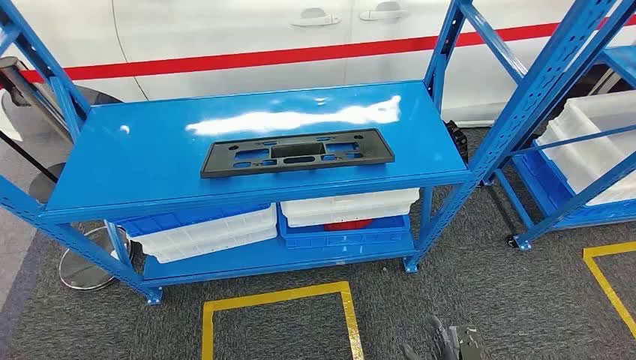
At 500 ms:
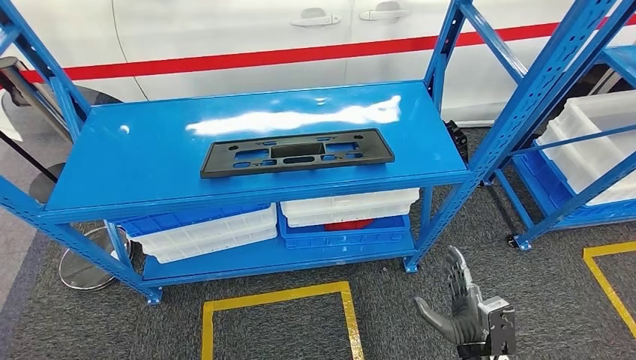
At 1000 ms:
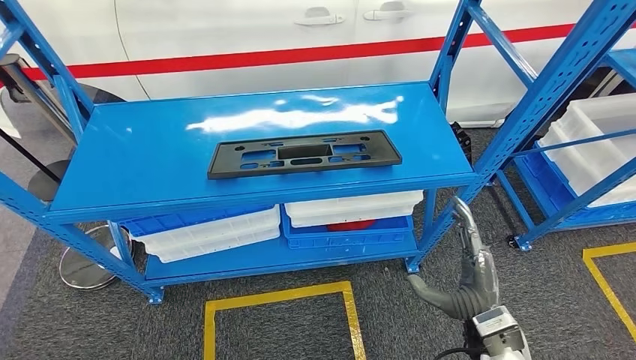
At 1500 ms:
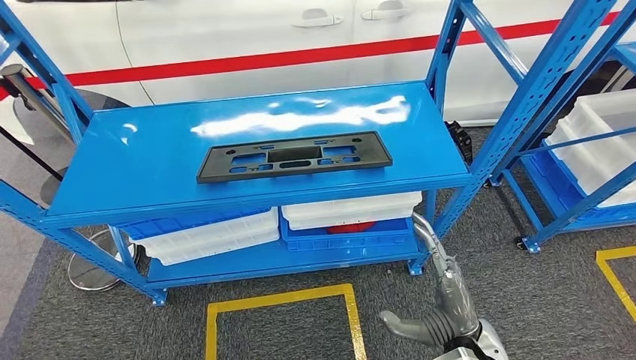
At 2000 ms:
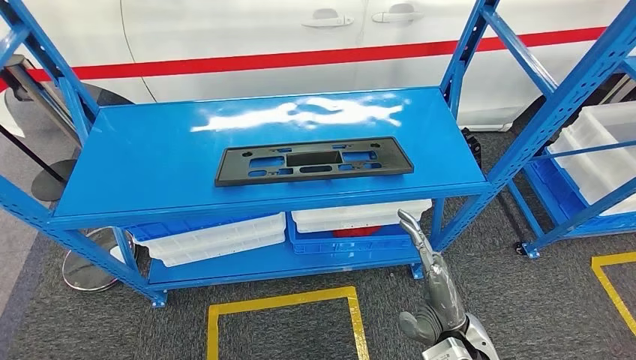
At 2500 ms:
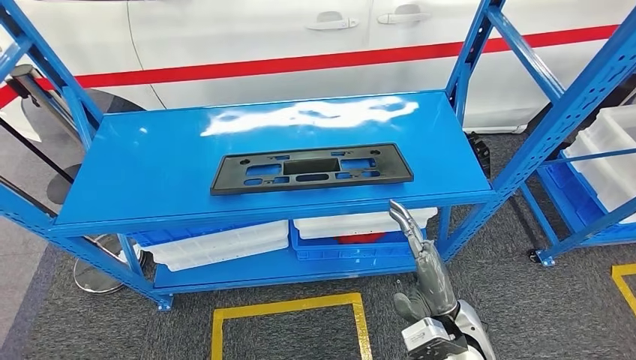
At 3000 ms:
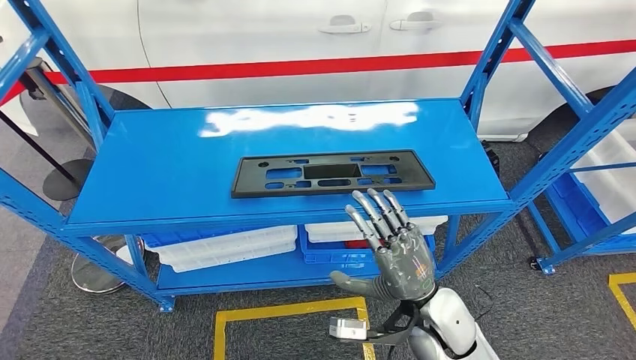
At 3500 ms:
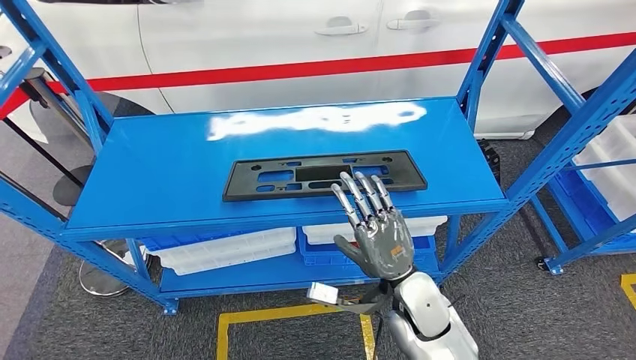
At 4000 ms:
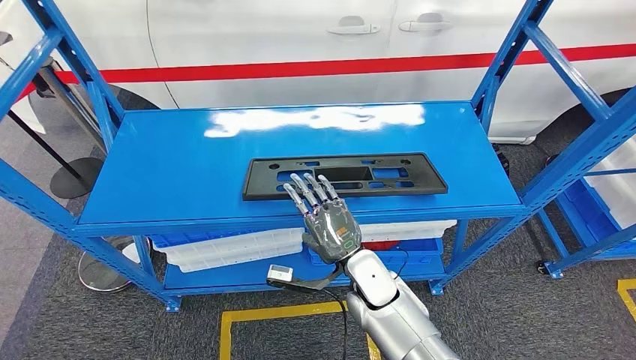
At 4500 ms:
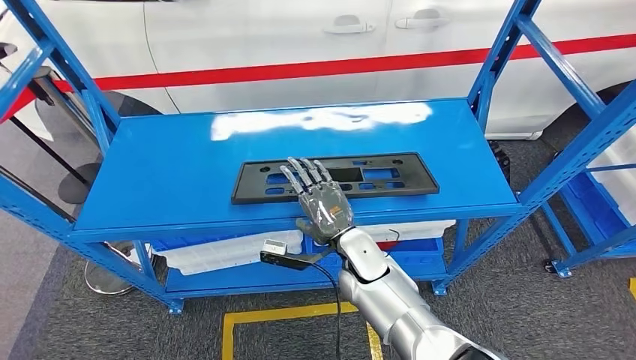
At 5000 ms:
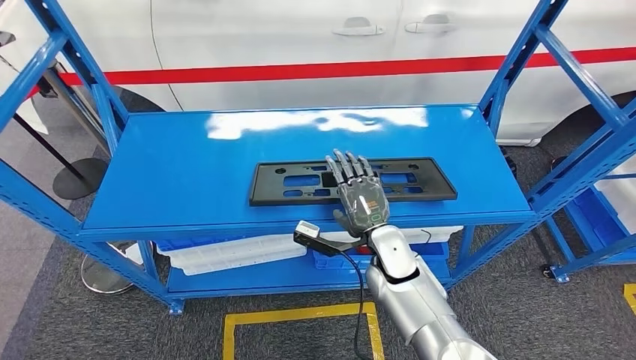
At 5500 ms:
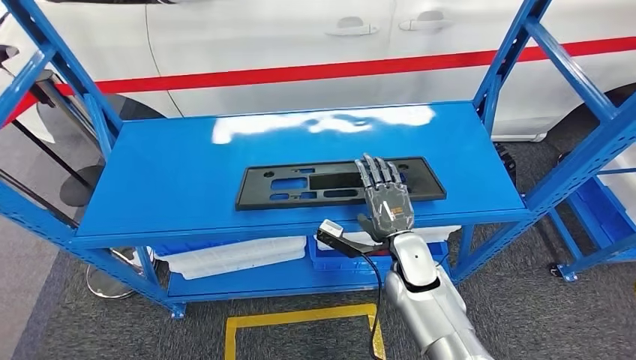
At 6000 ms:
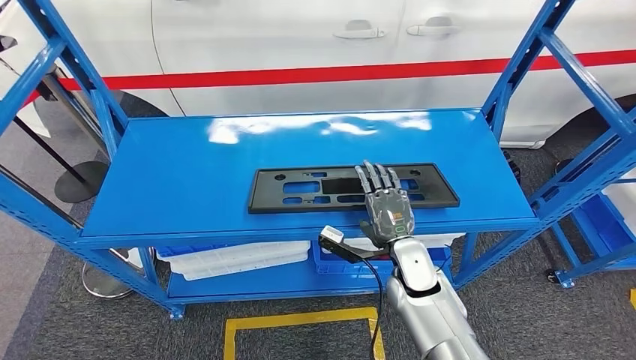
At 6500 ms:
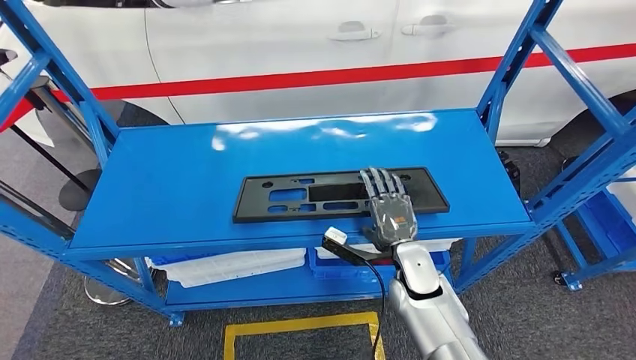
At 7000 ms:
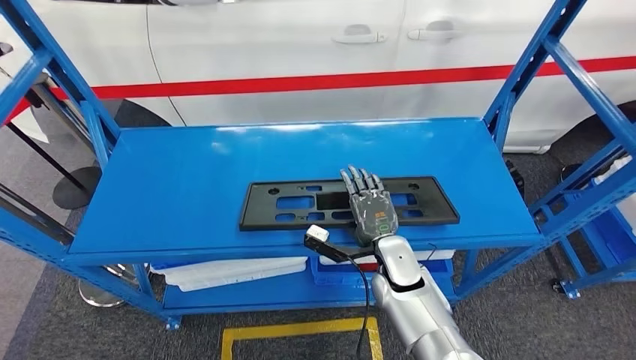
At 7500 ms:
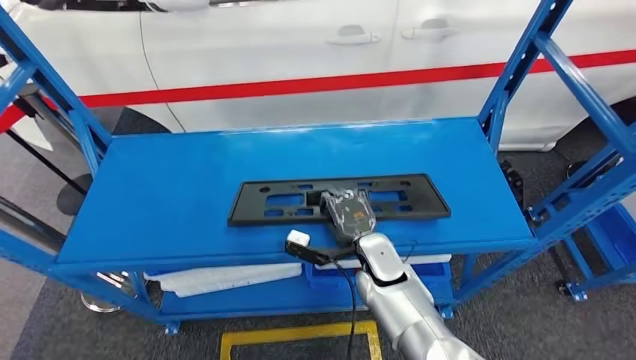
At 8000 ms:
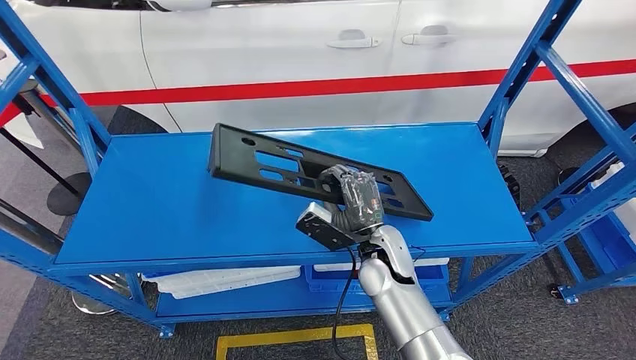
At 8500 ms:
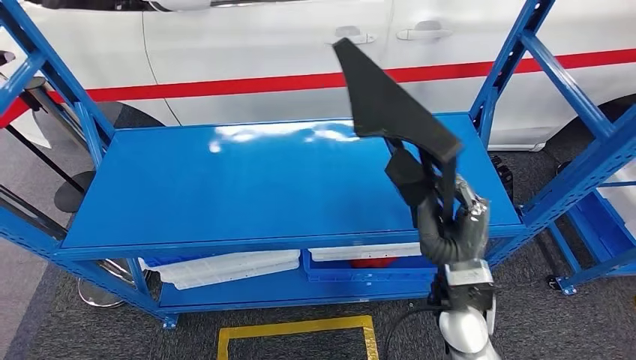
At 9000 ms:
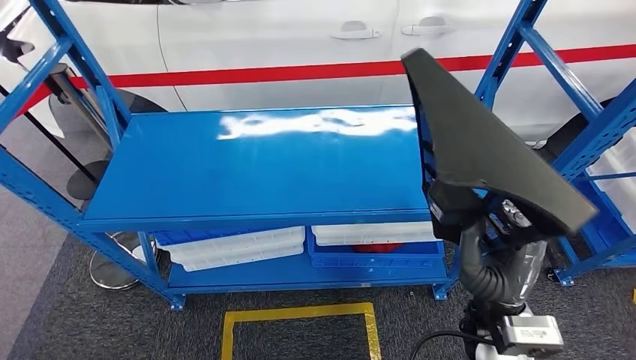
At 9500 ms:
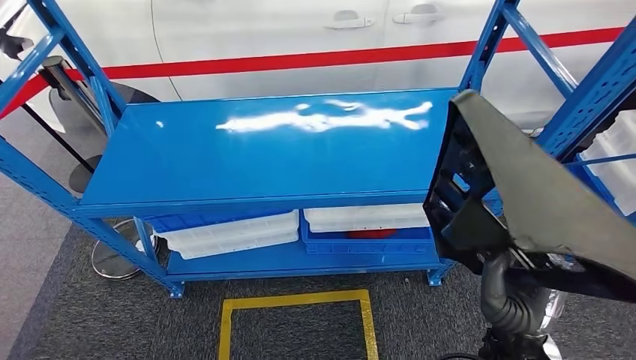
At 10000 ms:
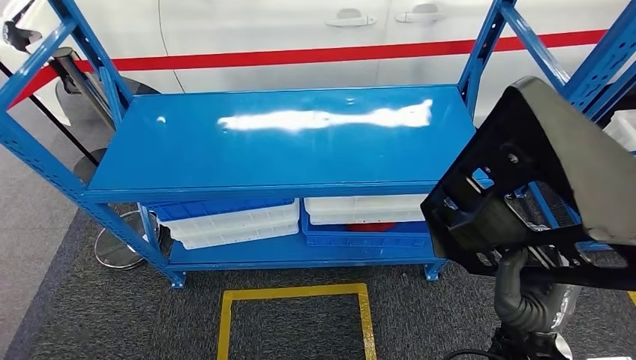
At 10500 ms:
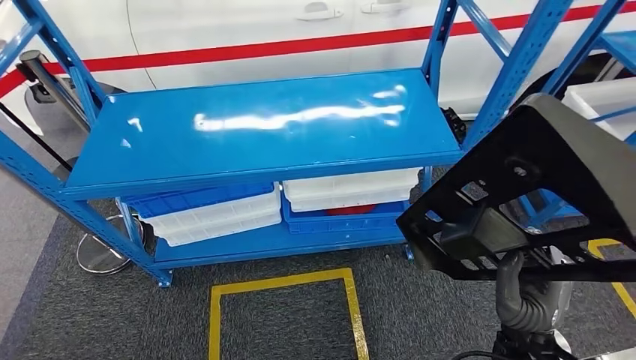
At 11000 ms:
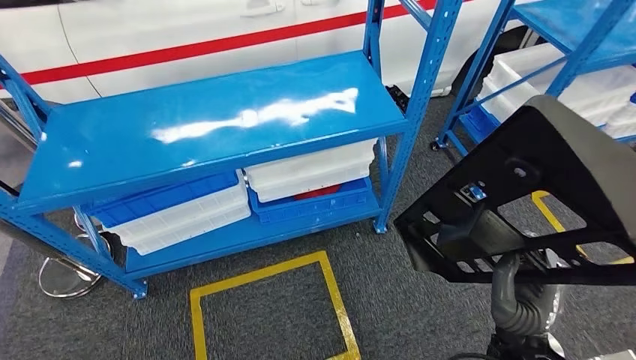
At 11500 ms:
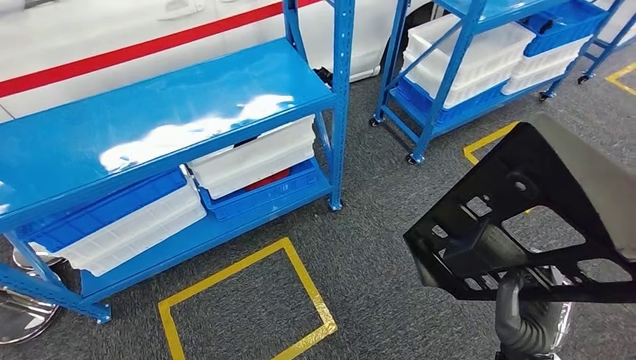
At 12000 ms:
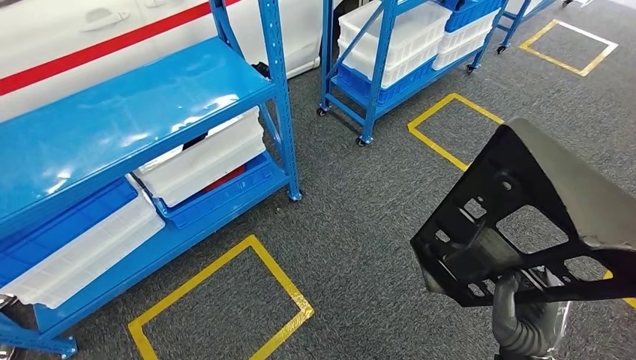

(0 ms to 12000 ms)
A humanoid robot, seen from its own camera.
Step, 0 ms - 8500 ms: Pick up the large material from the shelf.

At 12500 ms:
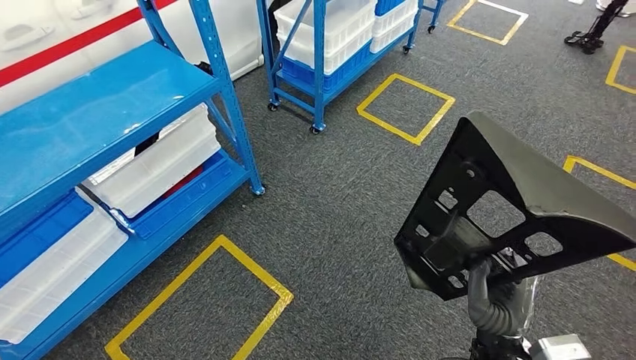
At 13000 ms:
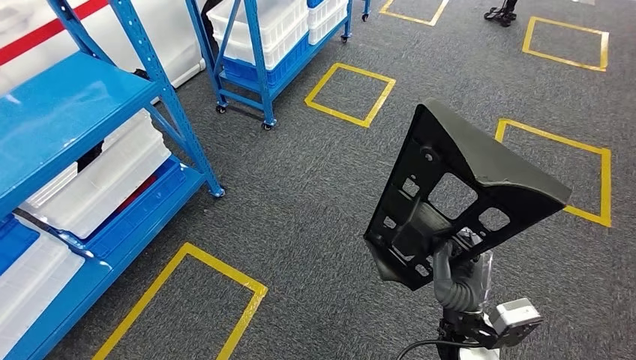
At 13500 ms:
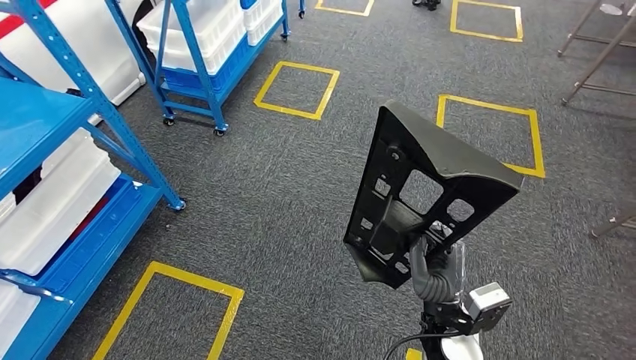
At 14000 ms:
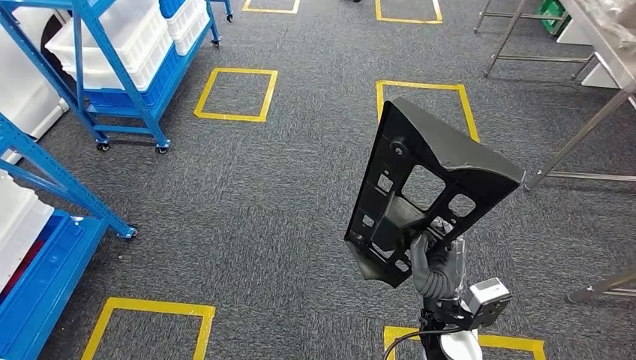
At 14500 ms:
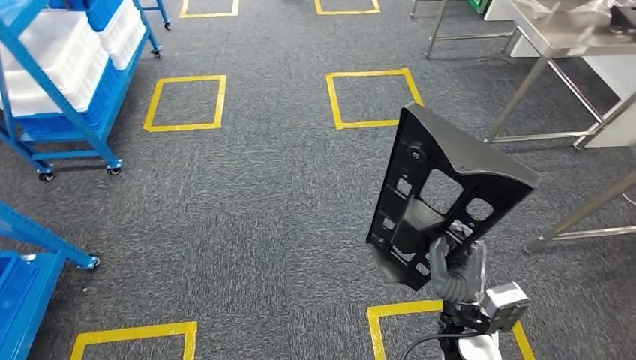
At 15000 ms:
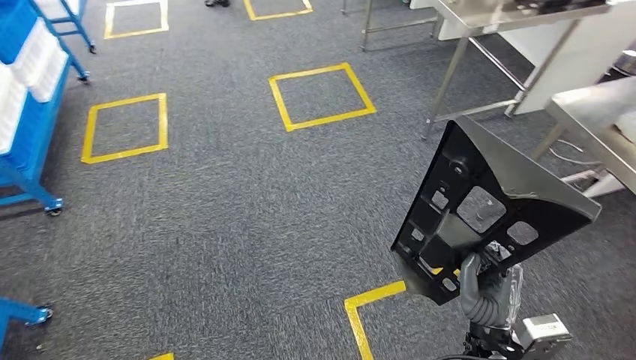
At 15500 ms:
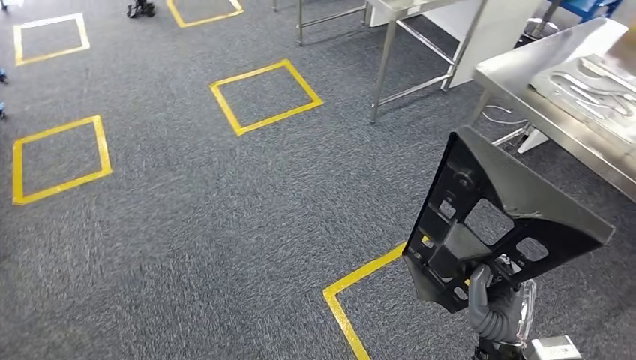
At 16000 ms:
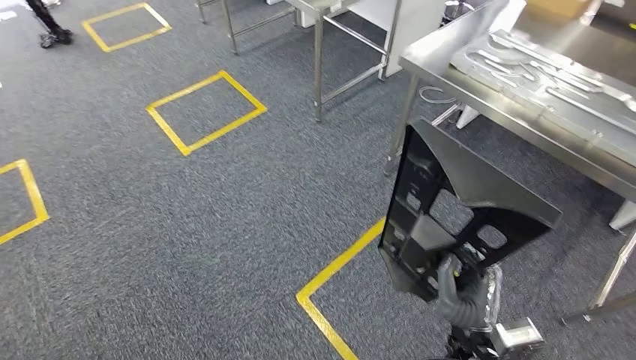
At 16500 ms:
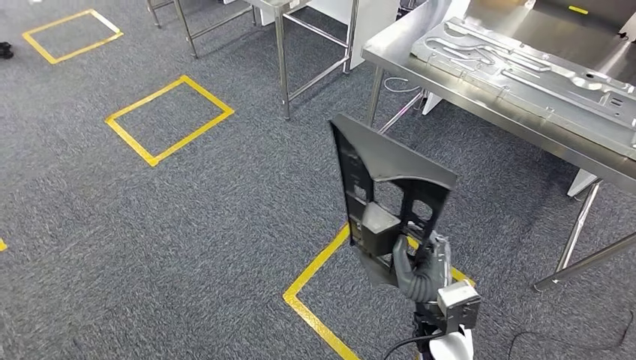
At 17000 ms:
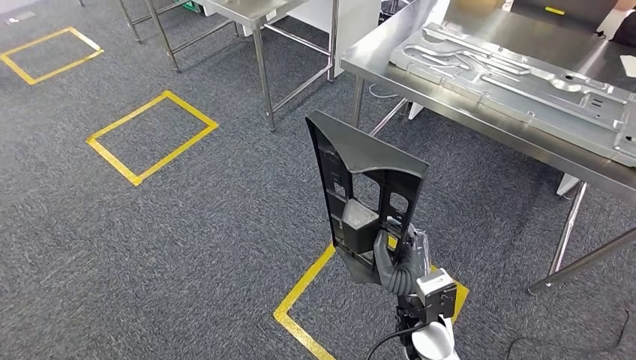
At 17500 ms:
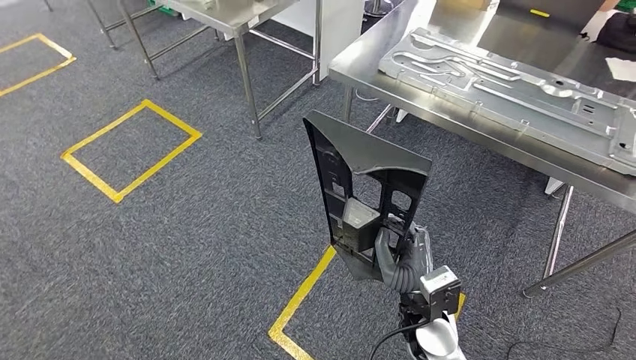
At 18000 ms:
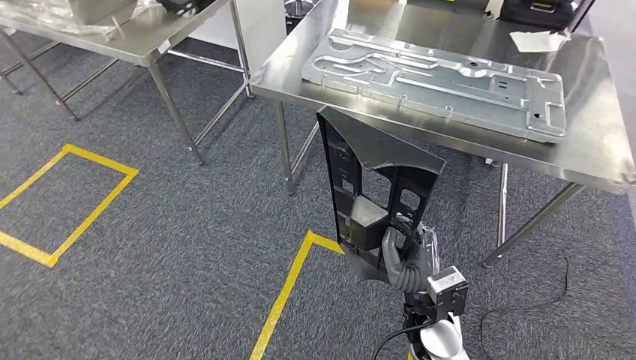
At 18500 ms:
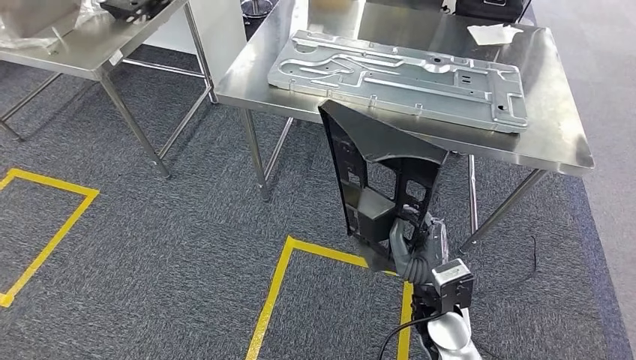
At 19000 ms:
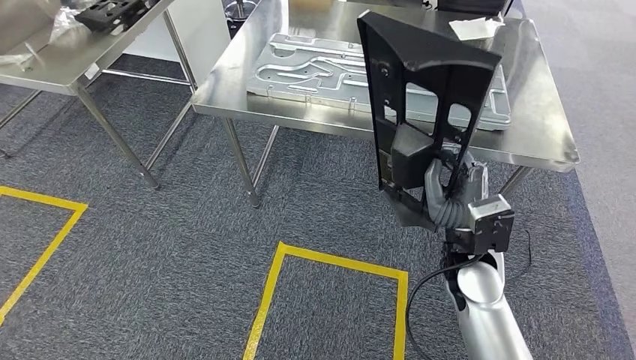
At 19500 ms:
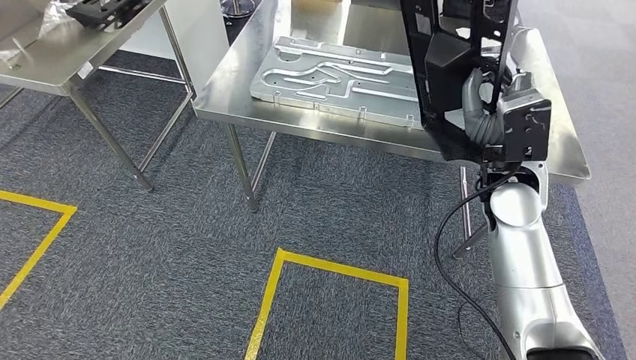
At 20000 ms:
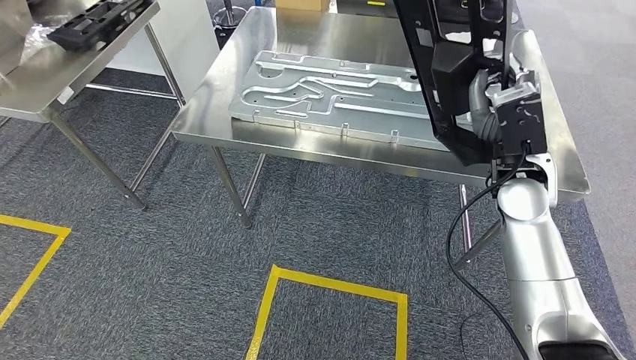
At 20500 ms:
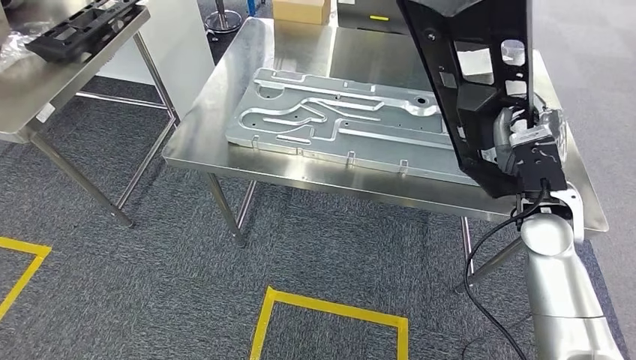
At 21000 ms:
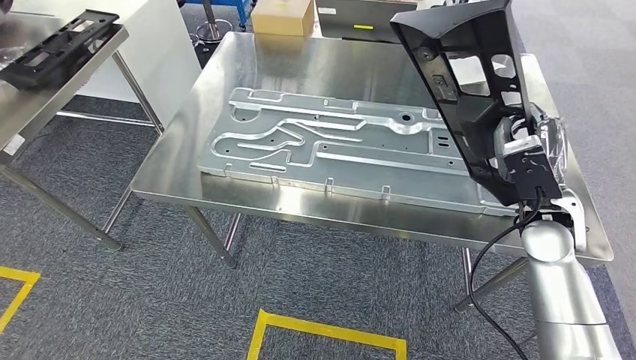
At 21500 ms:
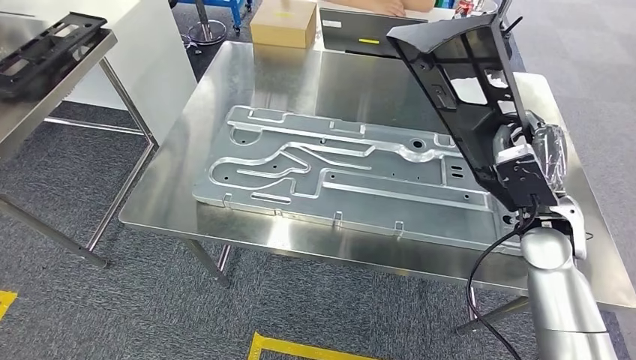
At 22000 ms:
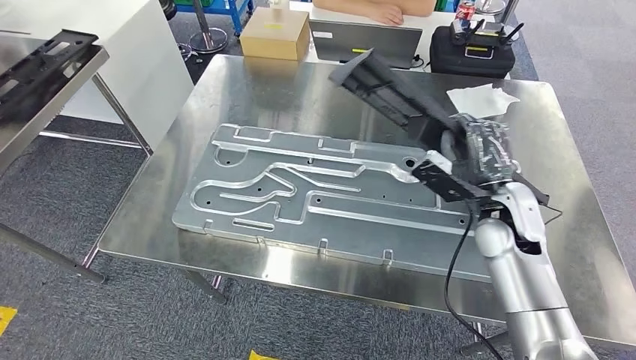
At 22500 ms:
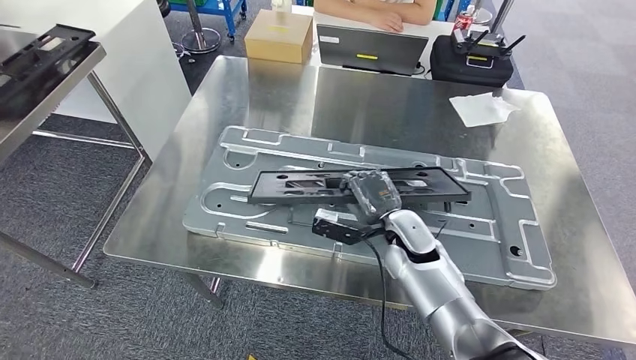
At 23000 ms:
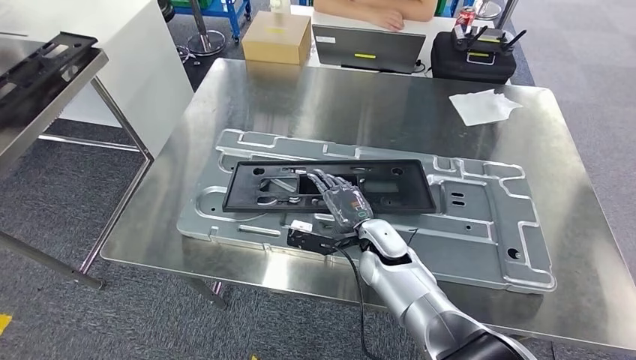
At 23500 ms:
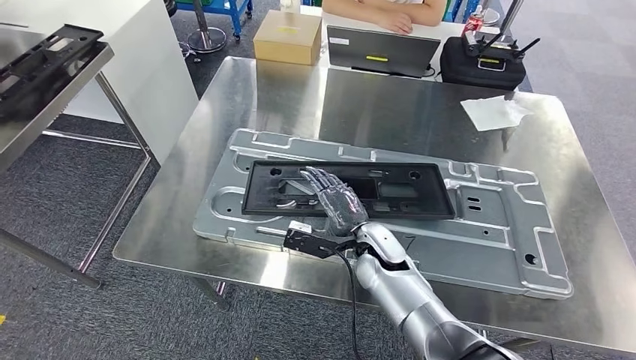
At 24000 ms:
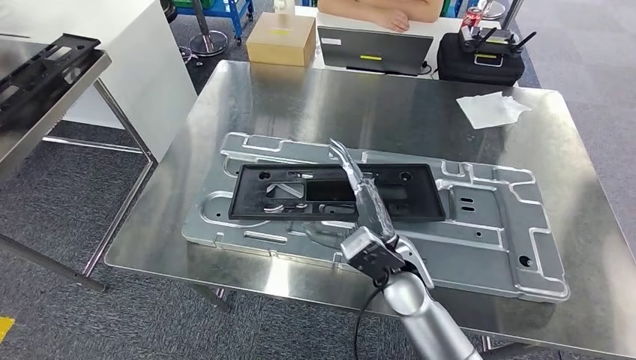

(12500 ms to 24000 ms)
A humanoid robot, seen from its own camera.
Step, 13000 ms - 19000 ms: Move the large material to the workbench.
